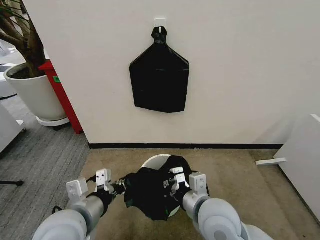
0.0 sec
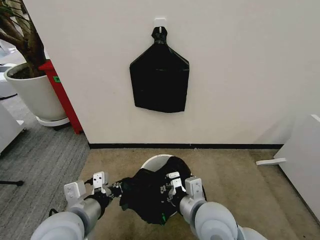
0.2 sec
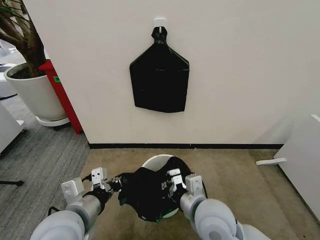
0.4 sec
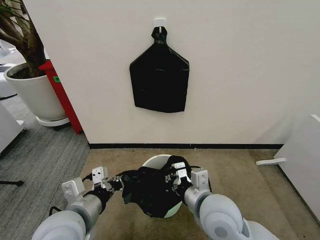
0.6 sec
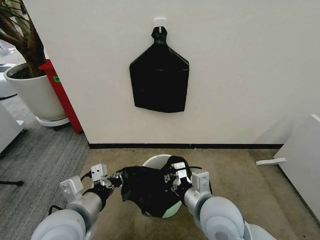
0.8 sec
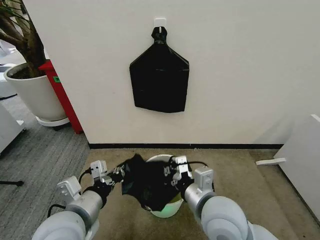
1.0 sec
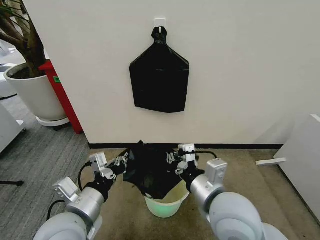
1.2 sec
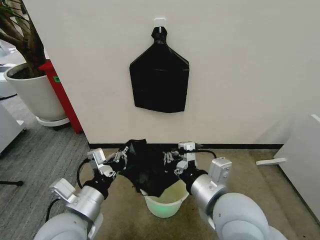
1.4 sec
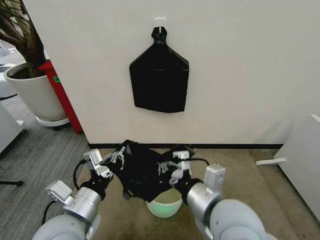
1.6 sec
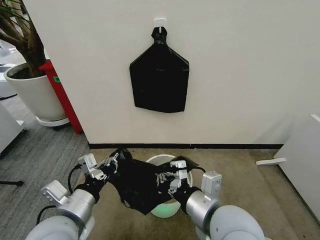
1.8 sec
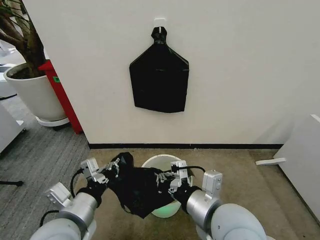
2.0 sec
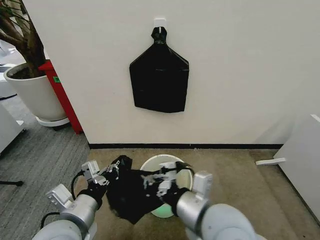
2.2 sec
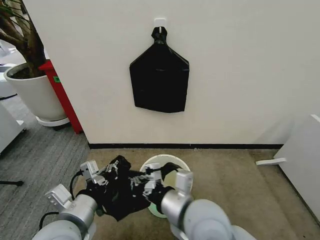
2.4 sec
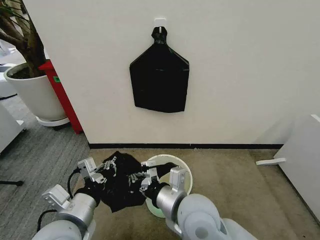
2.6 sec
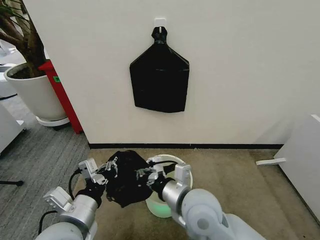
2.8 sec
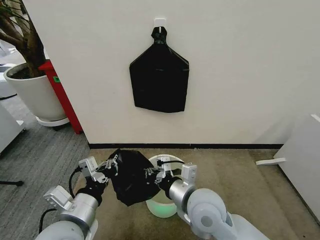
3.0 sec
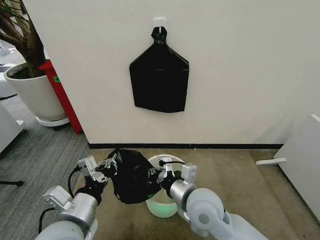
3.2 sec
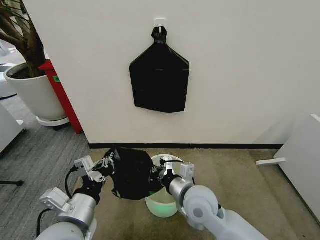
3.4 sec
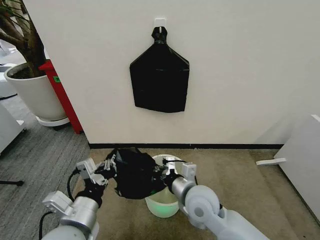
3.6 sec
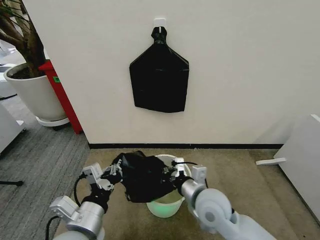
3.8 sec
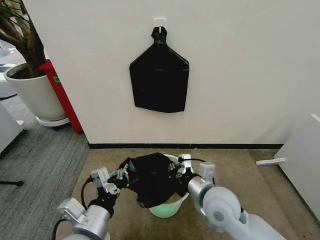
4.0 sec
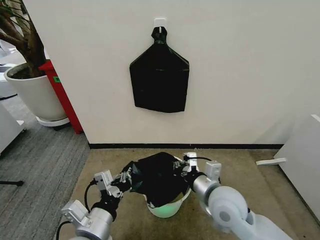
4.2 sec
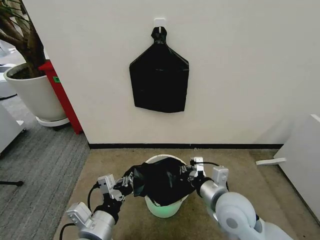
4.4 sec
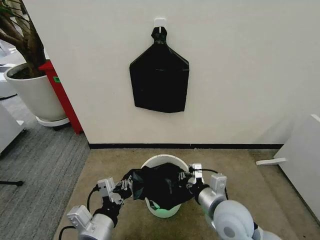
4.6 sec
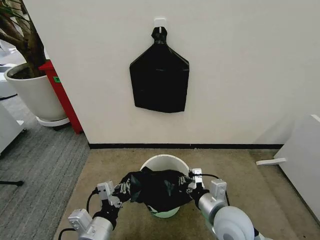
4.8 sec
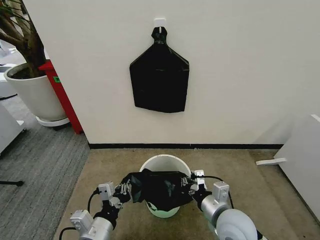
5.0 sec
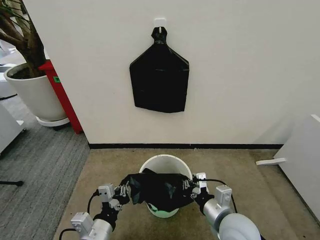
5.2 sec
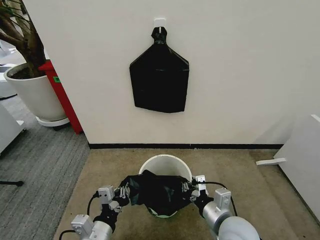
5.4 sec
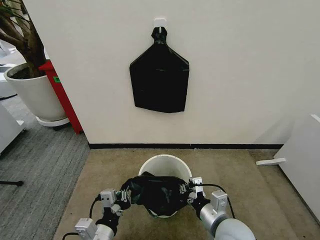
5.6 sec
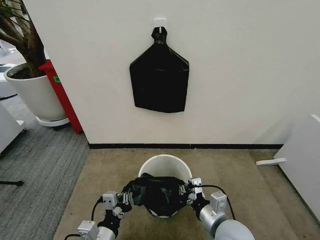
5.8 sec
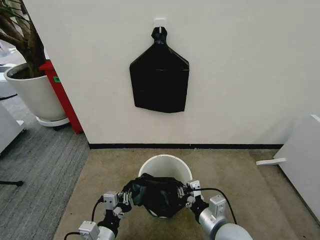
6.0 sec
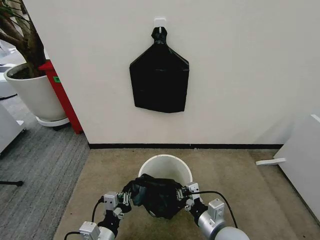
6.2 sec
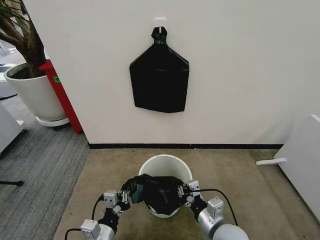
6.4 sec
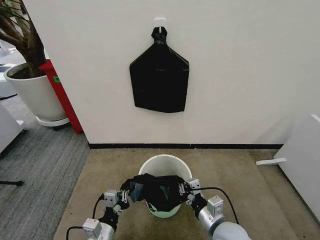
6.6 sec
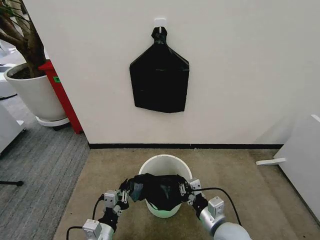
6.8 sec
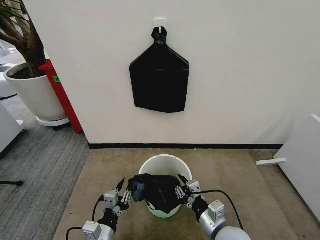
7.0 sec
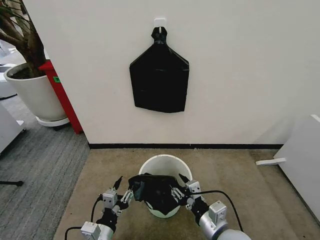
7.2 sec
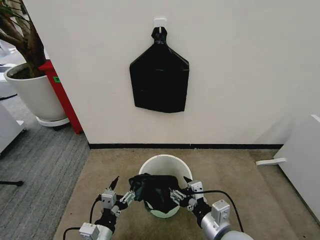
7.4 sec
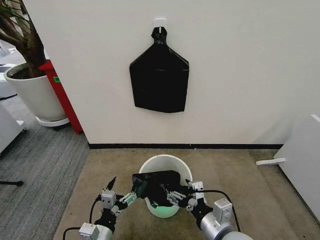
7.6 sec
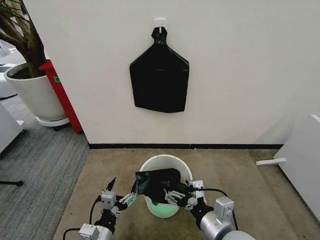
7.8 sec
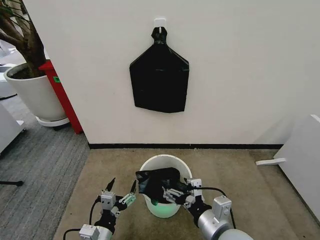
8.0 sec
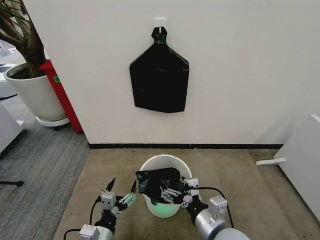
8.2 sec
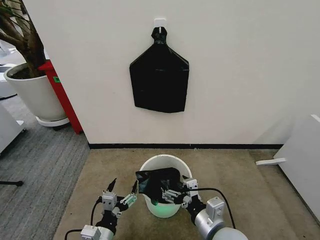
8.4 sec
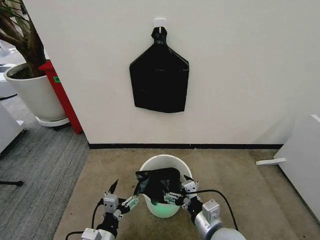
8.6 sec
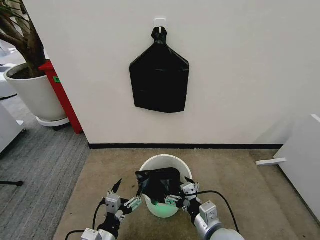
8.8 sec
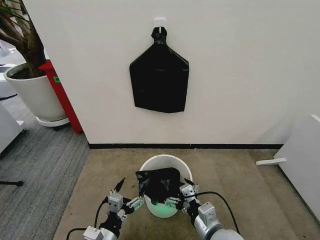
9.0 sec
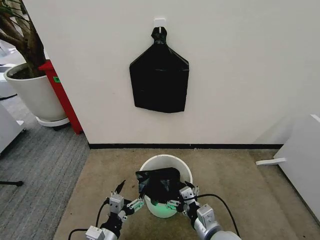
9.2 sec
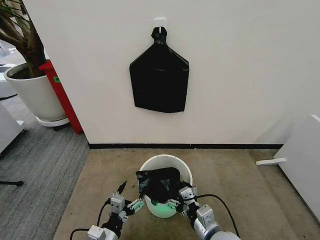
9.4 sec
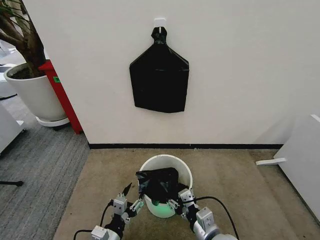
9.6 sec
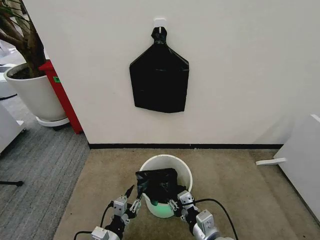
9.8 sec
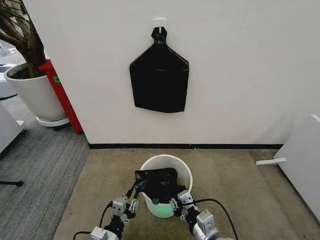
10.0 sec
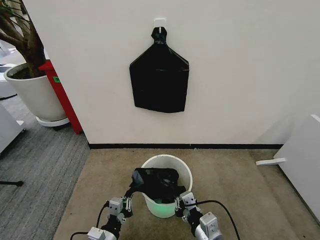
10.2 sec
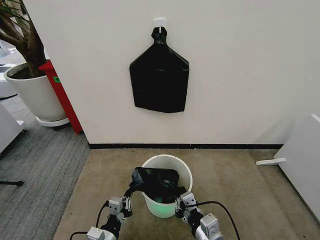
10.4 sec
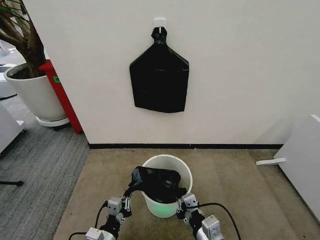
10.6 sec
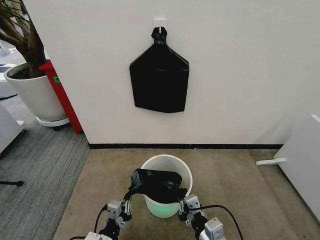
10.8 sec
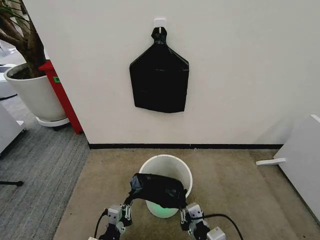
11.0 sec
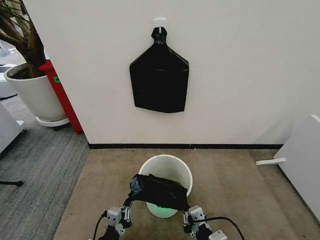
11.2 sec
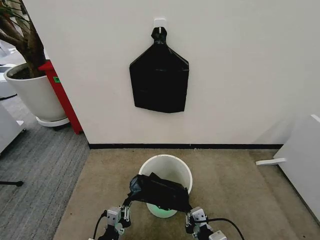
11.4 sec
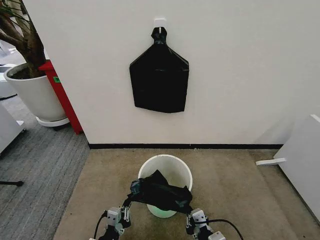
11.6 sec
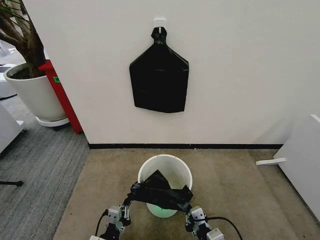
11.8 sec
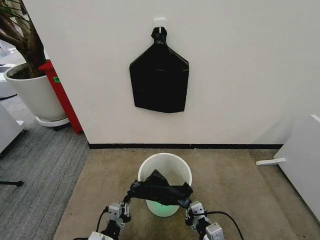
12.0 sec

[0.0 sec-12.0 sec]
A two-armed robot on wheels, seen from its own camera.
Task of the whole recording: Place the garbage bag over the trash bin.
0.0 sec to 1.6 sec: The right gripper moves upward, roughly 5 cm.
1.6 sec to 3.0 sec: The right gripper shifts some 10 cm downward and forward.
3.0 sec to 4.4 sec: The left gripper ends up about 5 cm from where it was, while the right gripper shifts some 10 cm to the right.
4.4 sec to 6.0 sec: The left gripper travels downward by some 10 cm. Meanwhile the right gripper is displaced backward and downward by roughly 10 cm.
6.0 sec to 7.6 sec: The left gripper opens; the right gripper ends up roughly 5 cm from where it was, and opens its fingers.
7.6 sec to 9.0 sec: The right gripper is displaced downward by some 5 cm.
9.0 sec to 10.4 sec: The left gripper closes, while the right gripper closes up.
10.4 sec to 12.0 sec: The right gripper travels downward by some 5 cm.

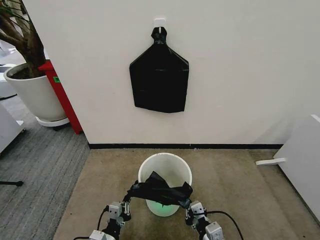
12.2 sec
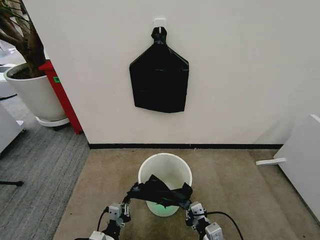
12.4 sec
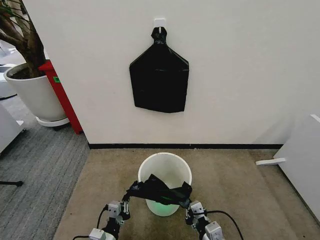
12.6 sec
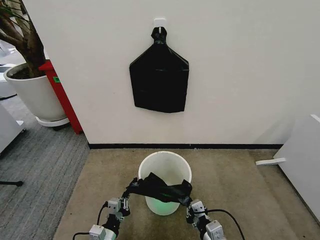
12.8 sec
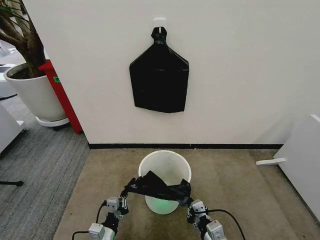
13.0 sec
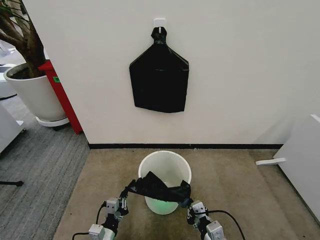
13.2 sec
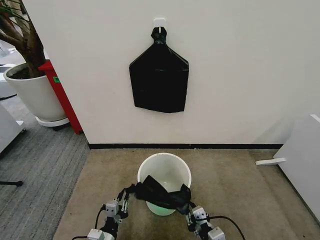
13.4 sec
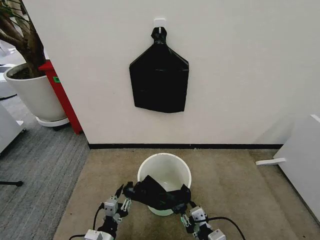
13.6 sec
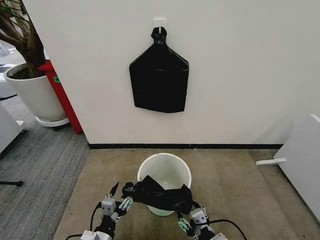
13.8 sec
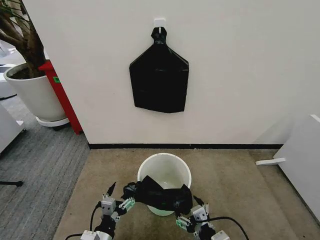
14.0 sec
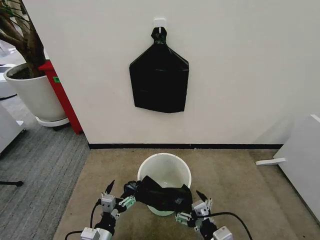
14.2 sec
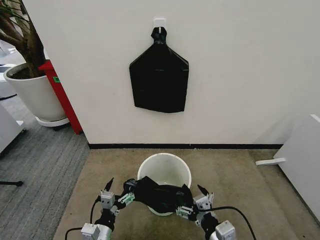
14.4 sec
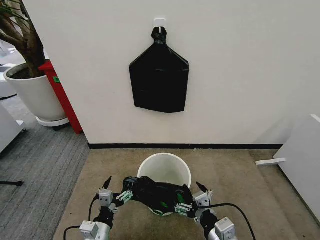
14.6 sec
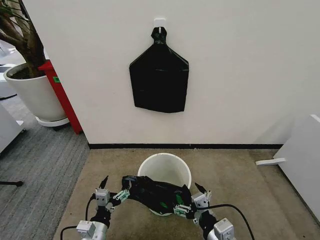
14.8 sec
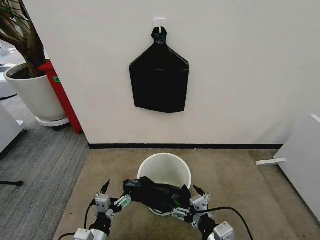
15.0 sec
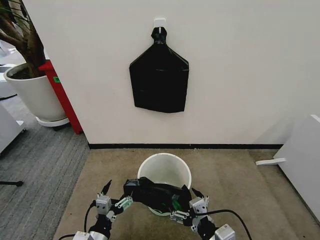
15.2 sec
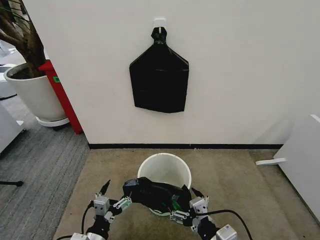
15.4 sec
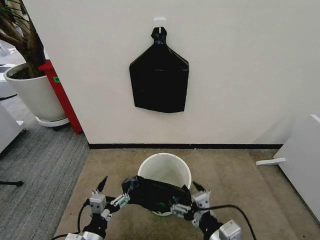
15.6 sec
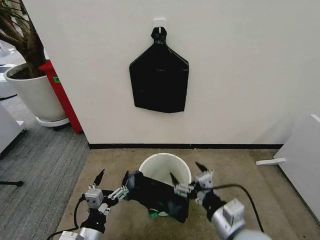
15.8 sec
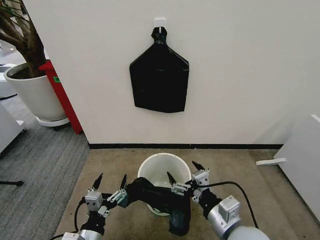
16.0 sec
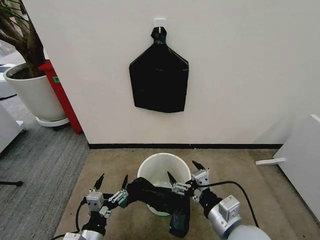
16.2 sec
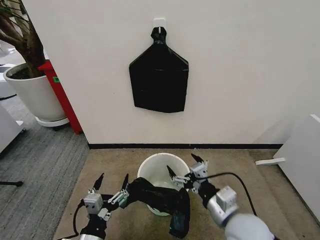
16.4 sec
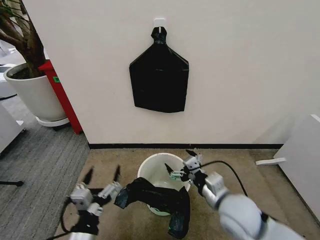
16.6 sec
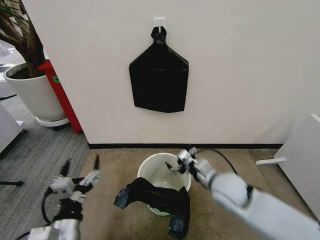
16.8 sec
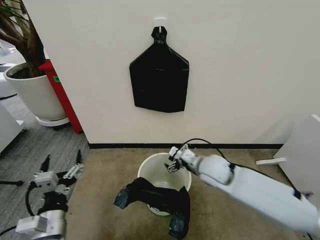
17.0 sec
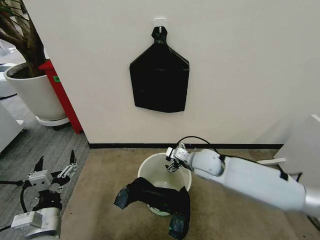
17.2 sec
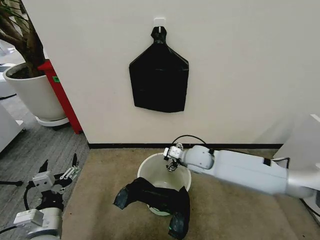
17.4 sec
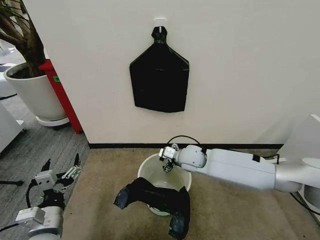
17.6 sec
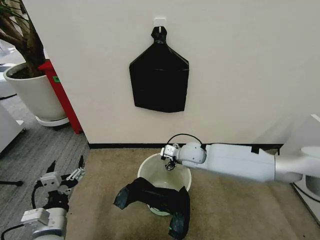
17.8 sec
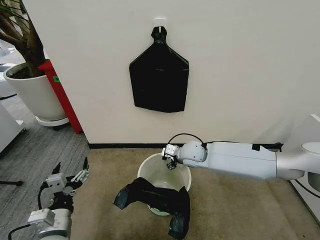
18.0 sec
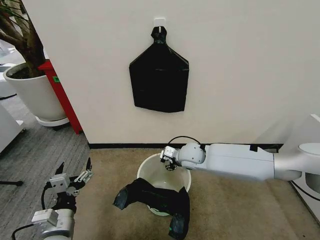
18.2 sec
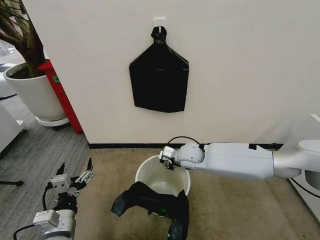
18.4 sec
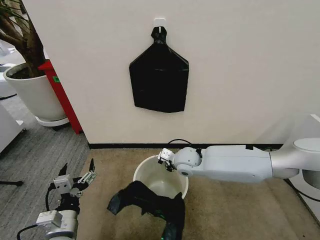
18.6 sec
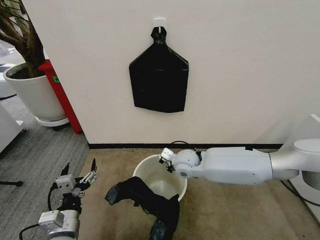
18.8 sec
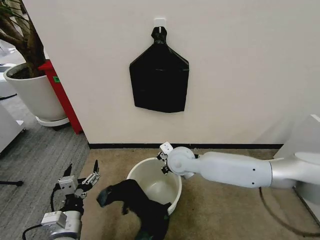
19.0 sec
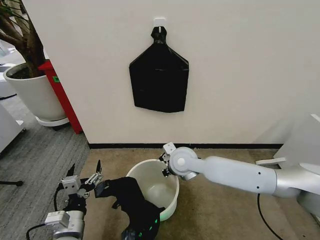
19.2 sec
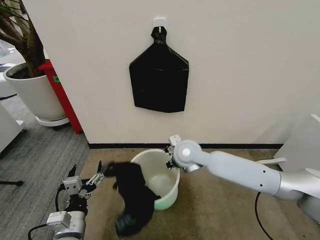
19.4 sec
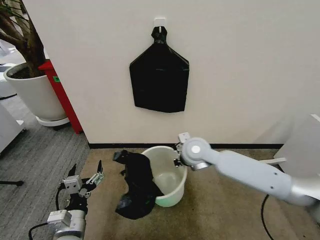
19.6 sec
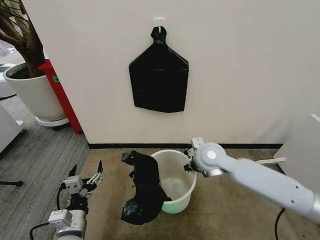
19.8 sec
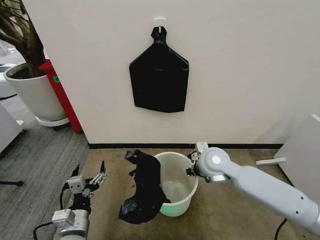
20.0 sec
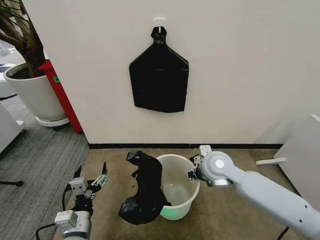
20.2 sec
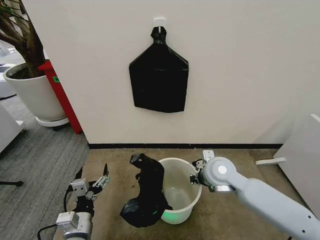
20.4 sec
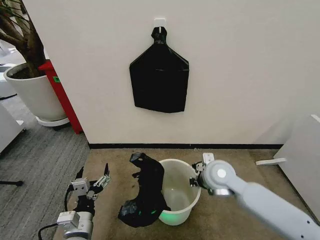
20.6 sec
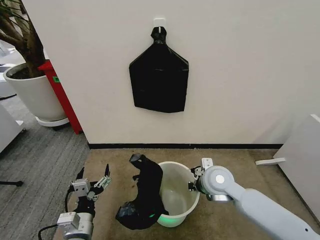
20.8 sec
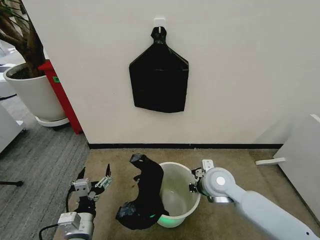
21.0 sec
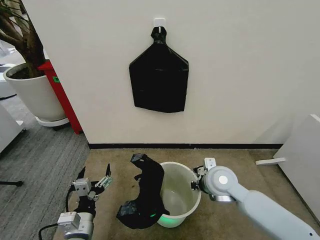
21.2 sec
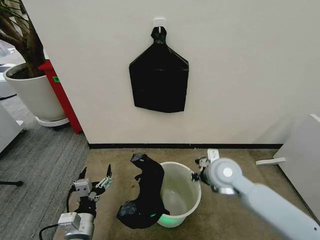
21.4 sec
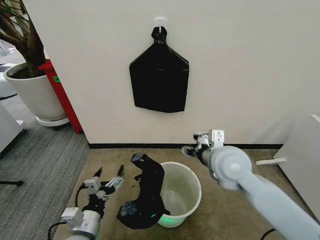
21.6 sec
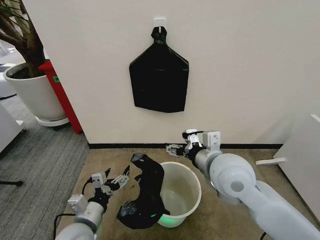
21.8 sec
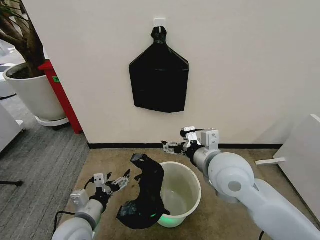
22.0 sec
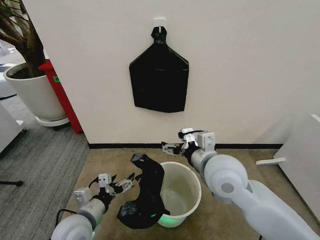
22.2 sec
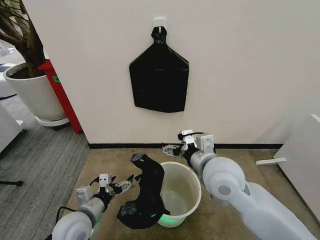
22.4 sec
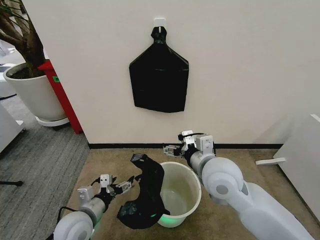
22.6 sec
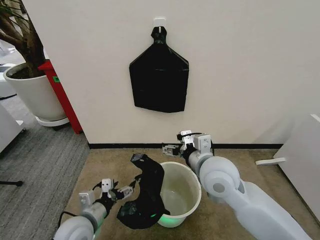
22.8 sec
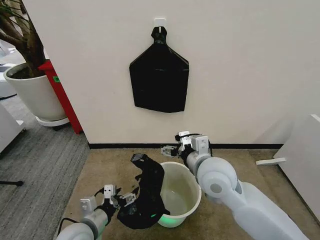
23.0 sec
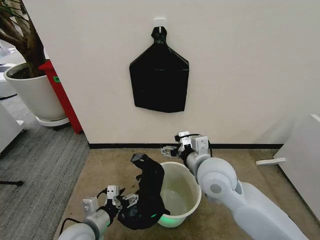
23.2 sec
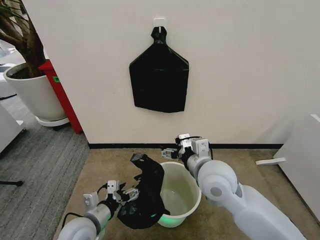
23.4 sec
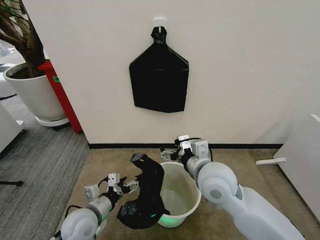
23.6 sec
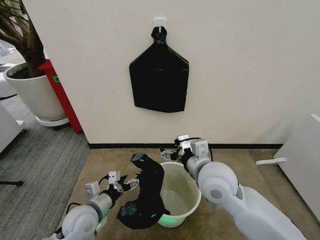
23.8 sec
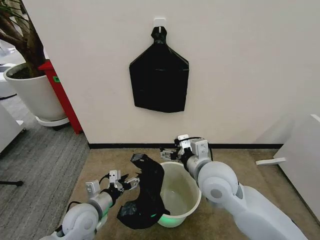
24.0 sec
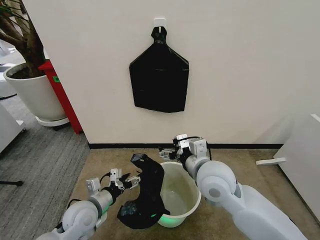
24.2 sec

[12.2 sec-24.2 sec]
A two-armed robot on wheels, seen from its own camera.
Task of the whole recording: Place the garbage bag over the trash bin.
12.2 sec to 13.8 sec: The left gripper opens. Meanwhile the right gripper opens.
13.8 sec to 15.2 sec: The right gripper moves upward, some 5 cm, and opens its fingers.
15.2 sec to 16.6 sec: The left gripper is displaced upward by about 10 cm; the right gripper heads forward, covering about 15 cm.
16.6 sec to 18.2 sec: The right gripper shifts some 20 cm forward and to the left, and closes its fingers. Meanwhile the left gripper shifts about 10 cm to the left and forward.
18.2 sec to 19.8 sec: The right gripper shifts roughly 10 cm upward, and closes its fingers.
19.8 sec to 21.2 sec: The right gripper shifts approximately 5 cm backward.
21.2 sec to 22.6 sec: The left gripper shifts roughly 5 cm forward. Meanwhile the right gripper heads upward, covering some 10 cm, and opens its fingers.
22.6 sec to 24.2 sec: The grippers stay close to where they were, moving slightly.
